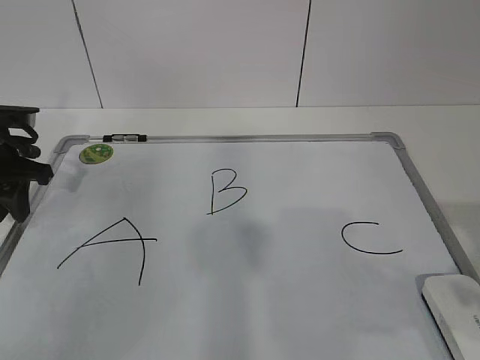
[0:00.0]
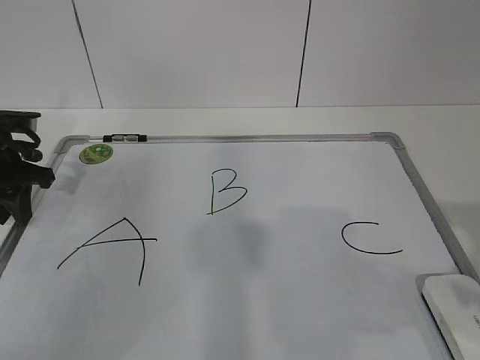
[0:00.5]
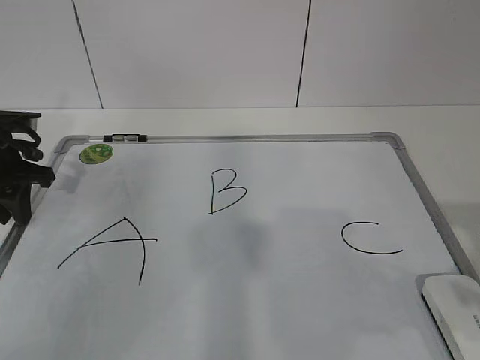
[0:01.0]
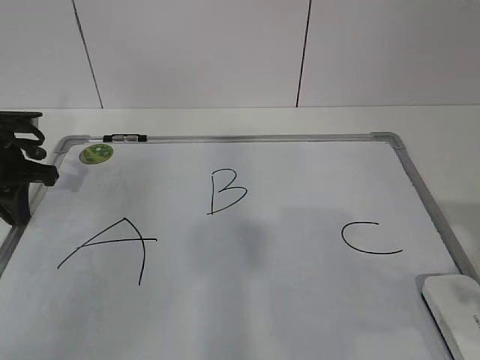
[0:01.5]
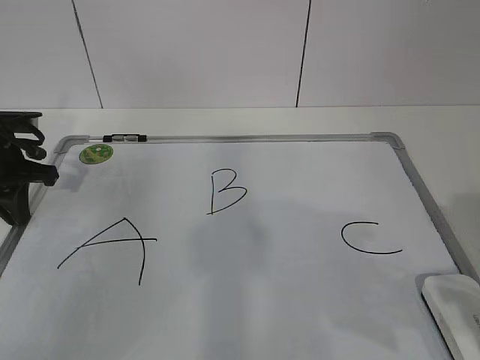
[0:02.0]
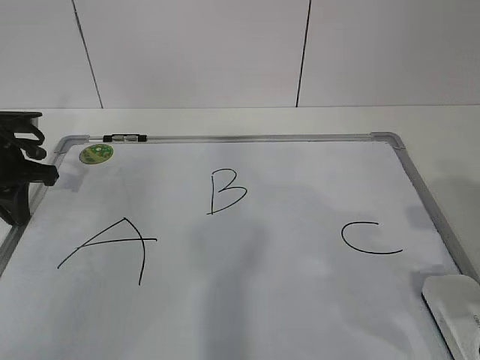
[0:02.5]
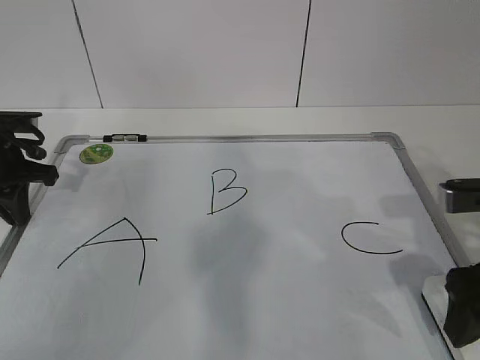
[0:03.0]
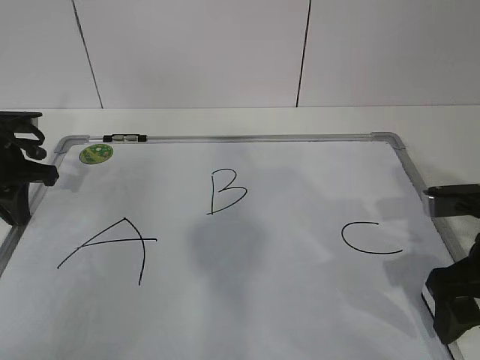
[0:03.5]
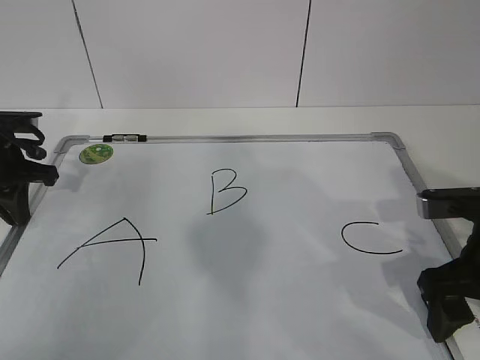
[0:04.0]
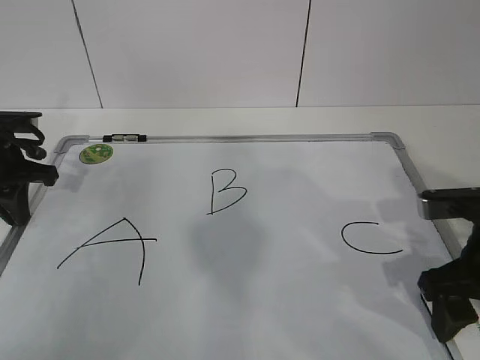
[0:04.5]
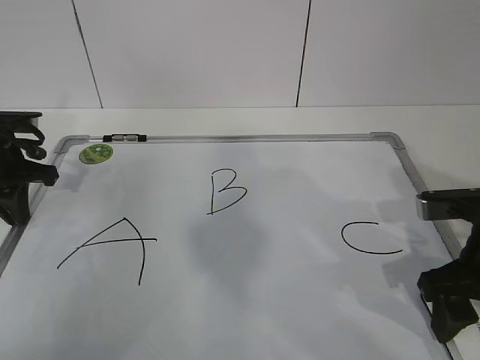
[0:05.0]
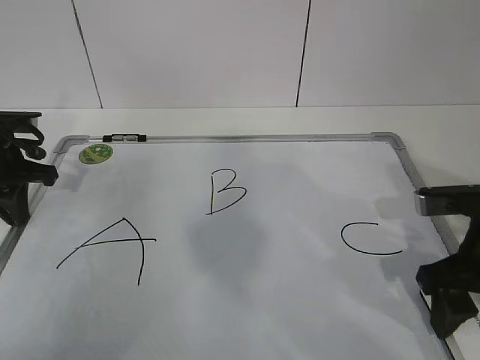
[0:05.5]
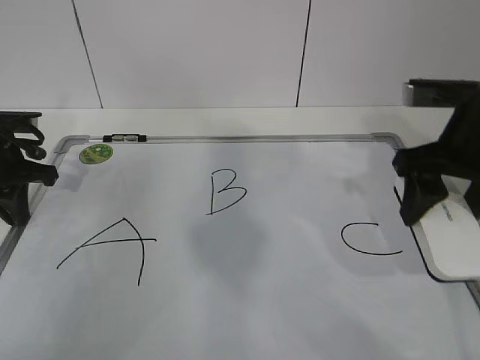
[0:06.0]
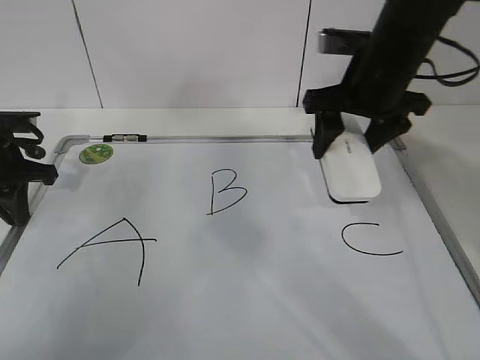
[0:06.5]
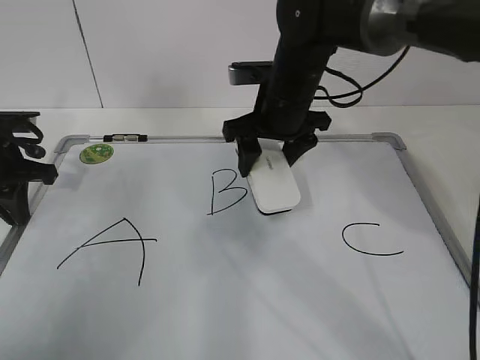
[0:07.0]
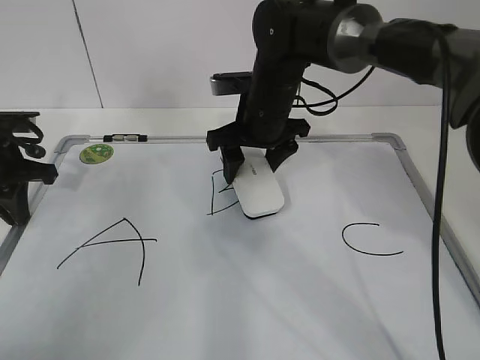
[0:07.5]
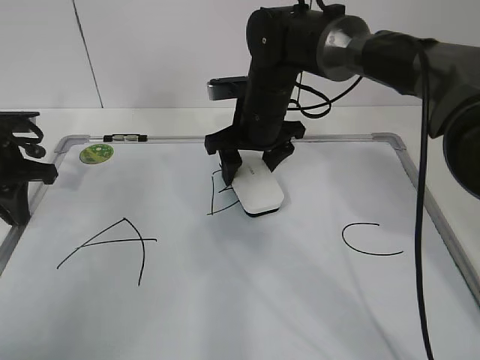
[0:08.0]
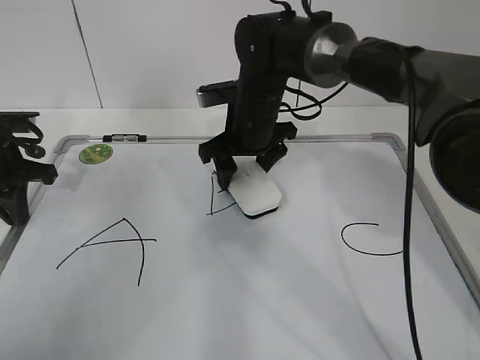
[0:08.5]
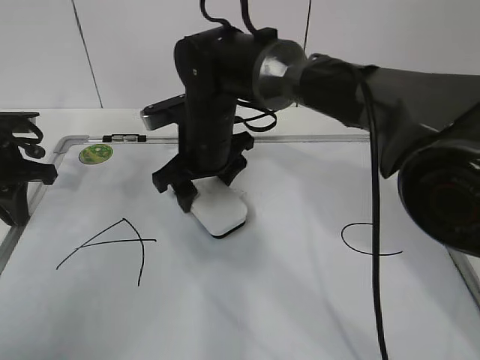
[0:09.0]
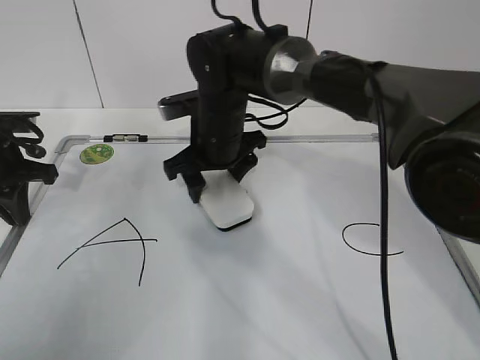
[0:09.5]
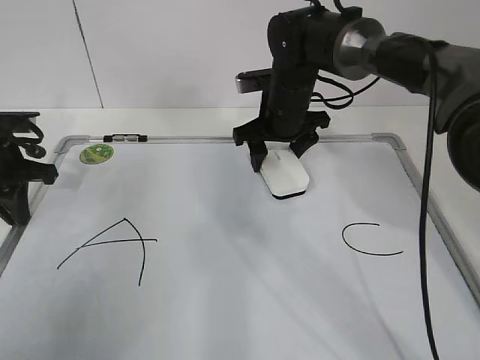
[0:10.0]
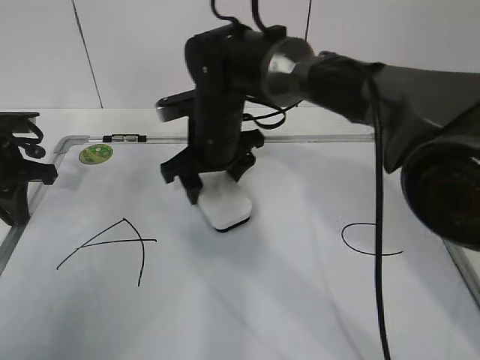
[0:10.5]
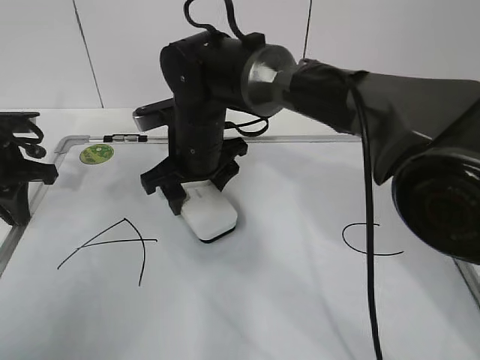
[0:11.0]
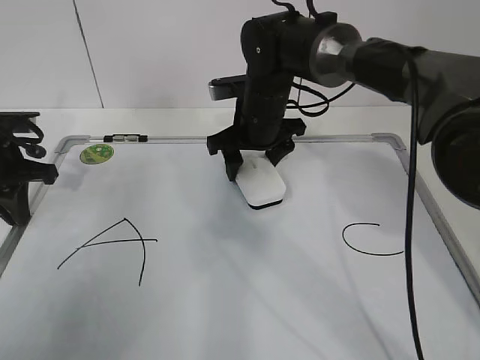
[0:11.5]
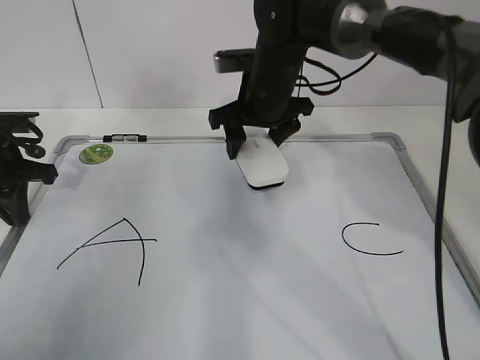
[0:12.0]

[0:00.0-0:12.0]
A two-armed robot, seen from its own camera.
Task of the whole recording: pick up the eraser on the blackboard and erase the letter "B".
Step, 0:00.5 to 0:03.0: Grab the eraser with your right hand.
Step, 0:03.5 to 0:09.0: Erase the letter B with your right hand.
0:00.0 to 0:02.0: The left gripper closes.
0:02.0 to 0:04.0: The right gripper goes approximately 15 cm forward and downward.
0:04.0 to 0:06.0: The right gripper travels upward and forward by some 10 cm, and closes.
0:06.0 to 0:08.0: The right gripper shifts about 25 cm to the left and forward.
0:10.0 to 0:12.0: The right gripper travels to the left and back again, approximately 10 cm each way.

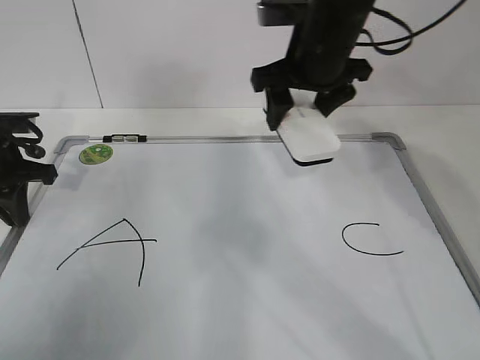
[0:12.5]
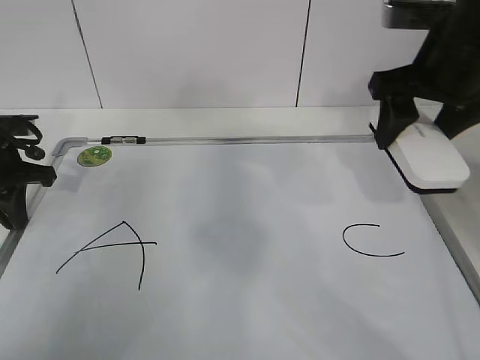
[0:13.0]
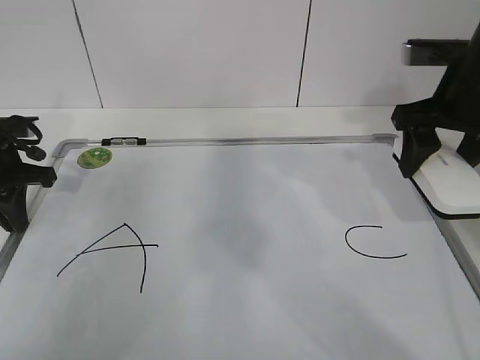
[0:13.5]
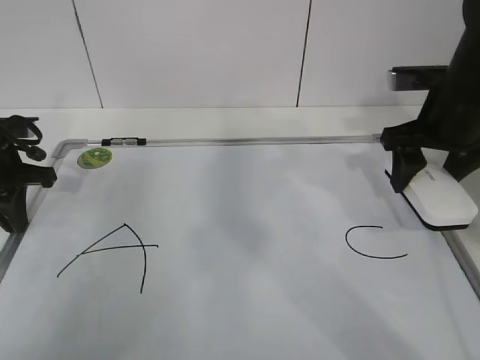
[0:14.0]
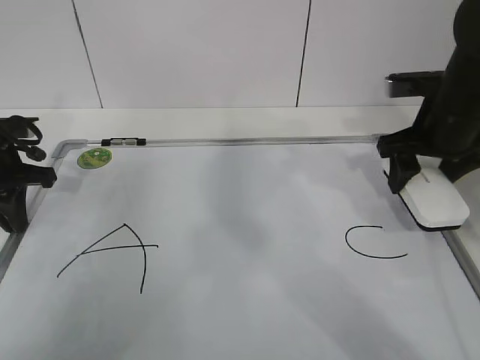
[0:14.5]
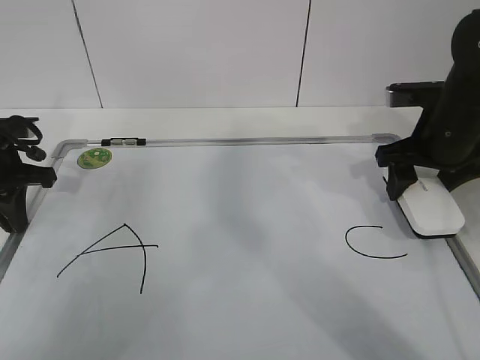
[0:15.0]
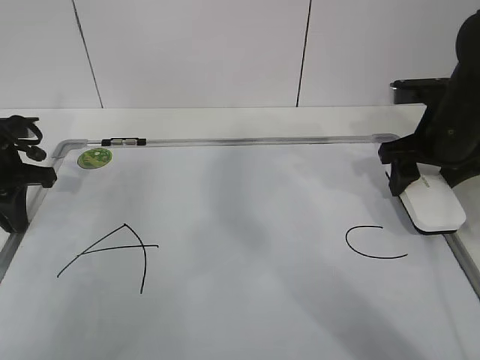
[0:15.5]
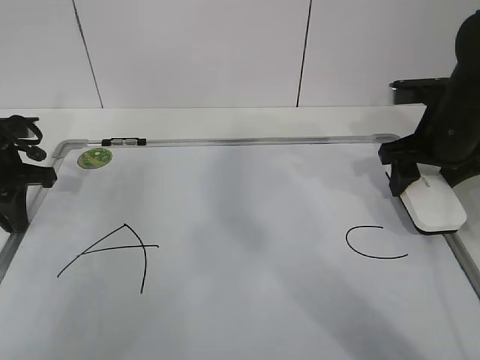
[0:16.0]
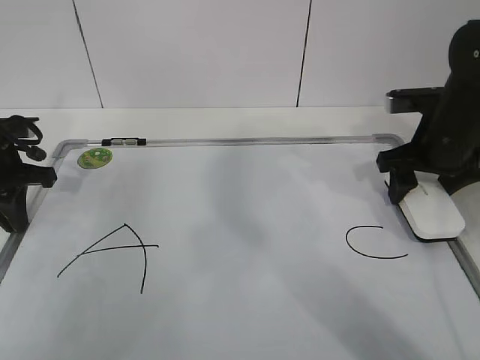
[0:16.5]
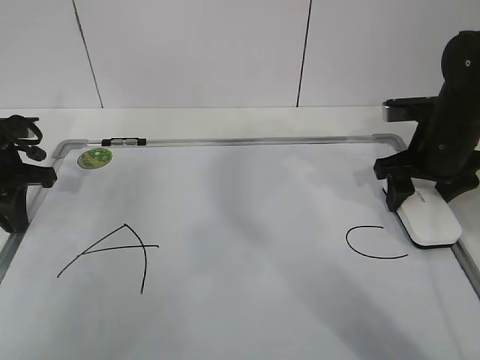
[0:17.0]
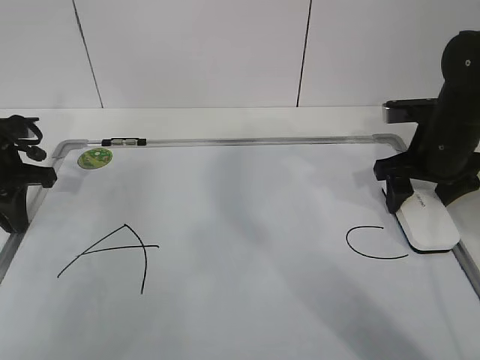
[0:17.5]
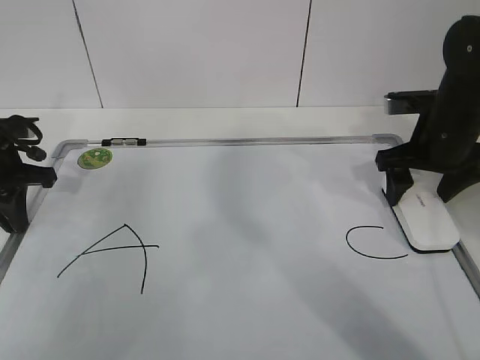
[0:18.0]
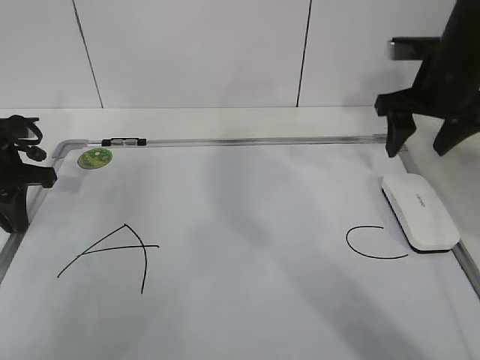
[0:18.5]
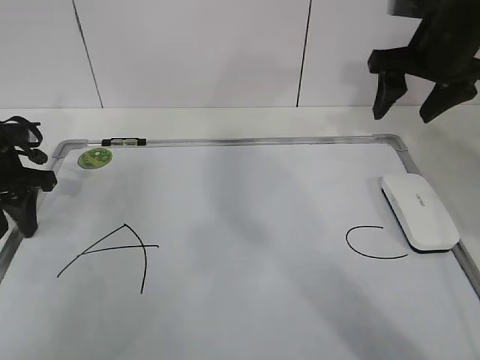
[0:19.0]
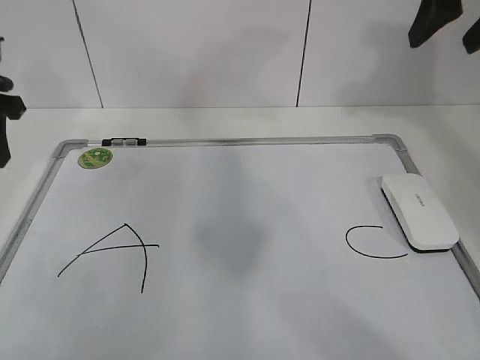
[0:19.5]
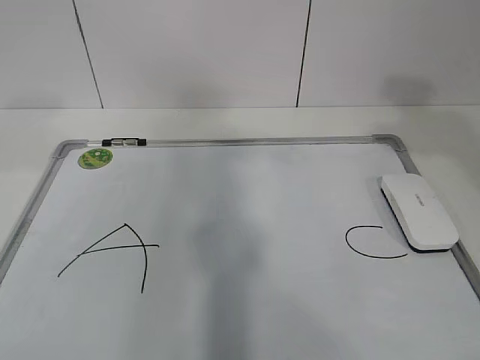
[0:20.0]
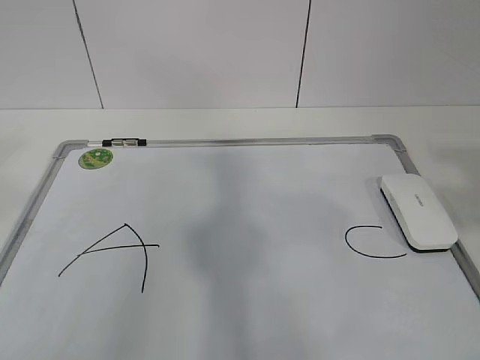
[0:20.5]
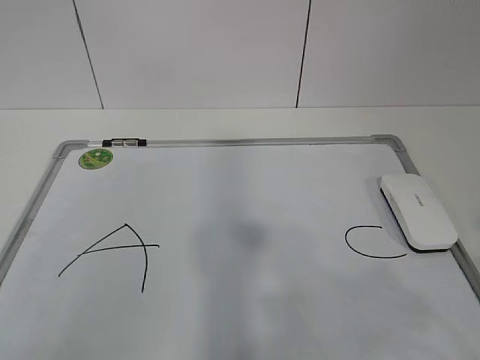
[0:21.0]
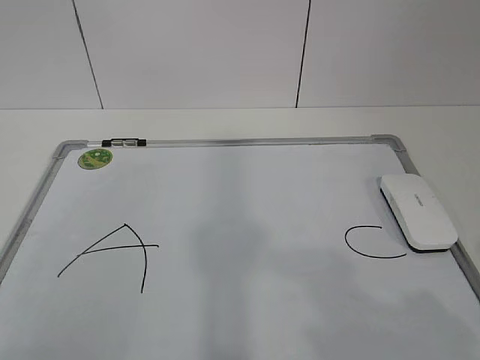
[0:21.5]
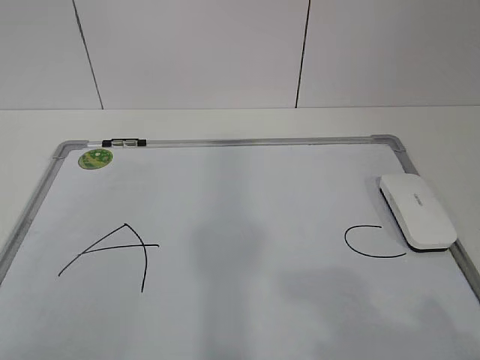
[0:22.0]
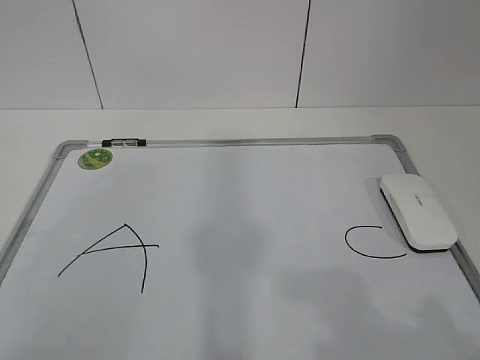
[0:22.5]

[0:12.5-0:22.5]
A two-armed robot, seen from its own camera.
Task of the whole recording: pick up the eraser on the blackboard and erase the letter "B".
0:12.5 to 0:14.5: The right gripper heads to the right and downward, covering about 15 cm.
0:14.5 to 0:16.5: The grippers make only small movements.
0:16.5 to 0:18.5: The right gripper goes approximately 5 cm upward, and opens, then closes once more.
0:18.5 to 0:20.5: Both grippers travel together backward and upward, roughly 35 cm. The left gripper opens.
0:20.5 to 0:22.5: The right gripper moves downward and backward, about 15 cm.
